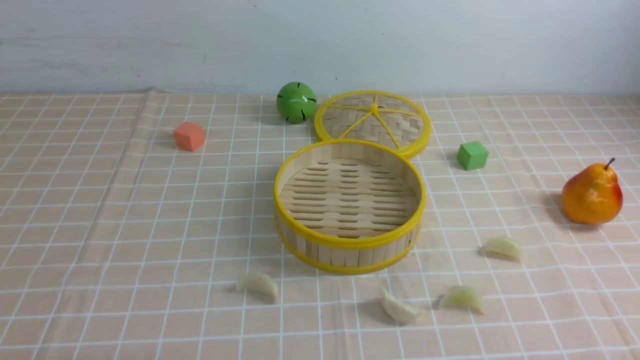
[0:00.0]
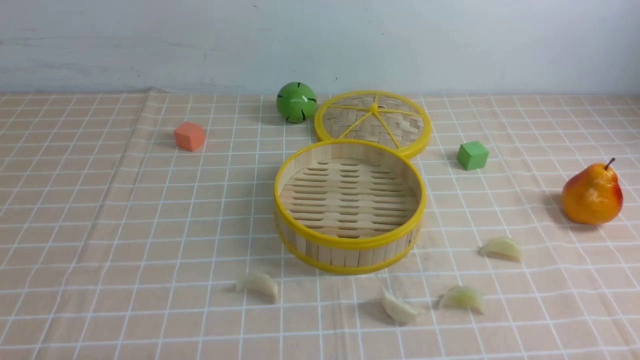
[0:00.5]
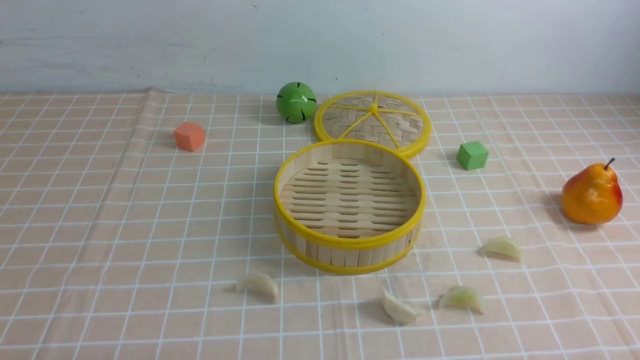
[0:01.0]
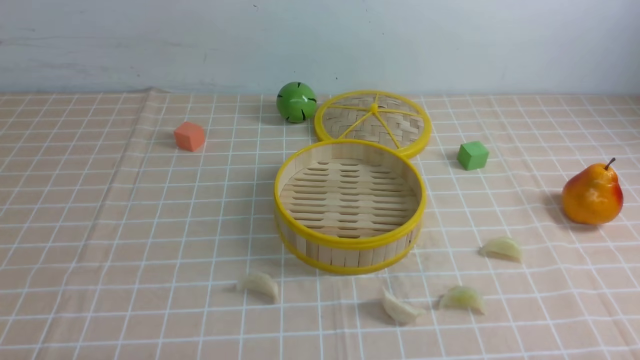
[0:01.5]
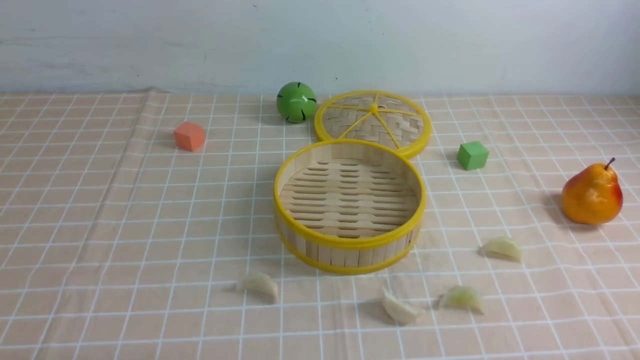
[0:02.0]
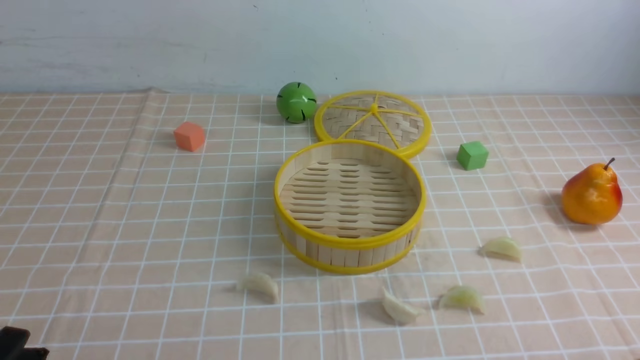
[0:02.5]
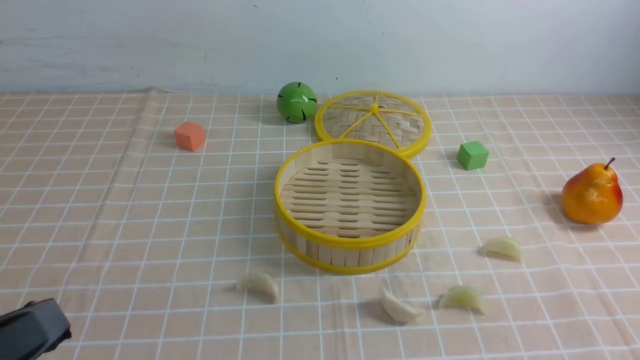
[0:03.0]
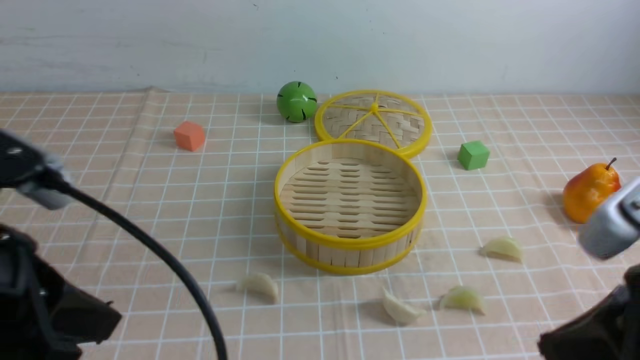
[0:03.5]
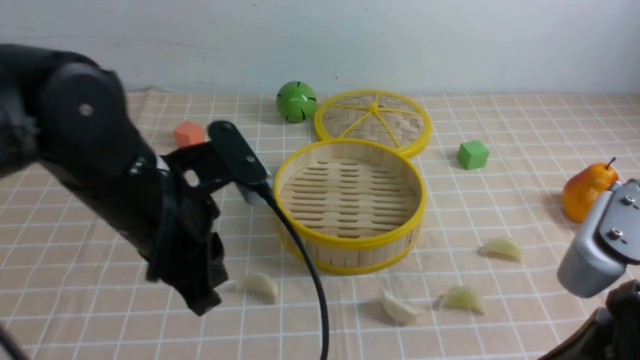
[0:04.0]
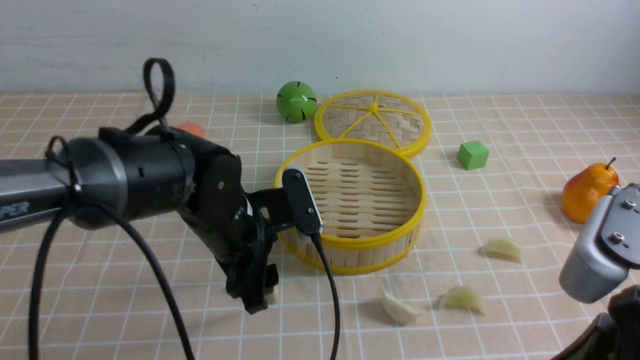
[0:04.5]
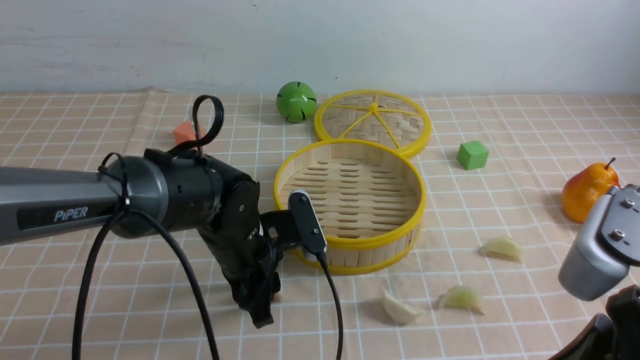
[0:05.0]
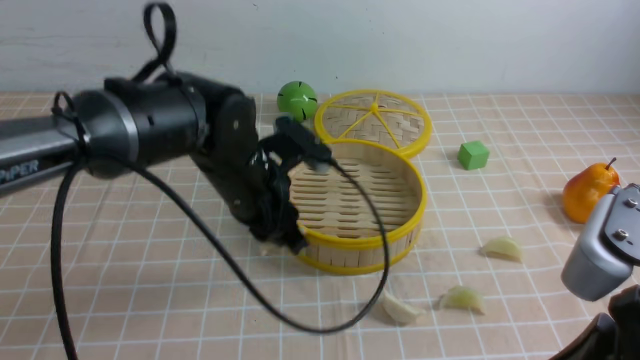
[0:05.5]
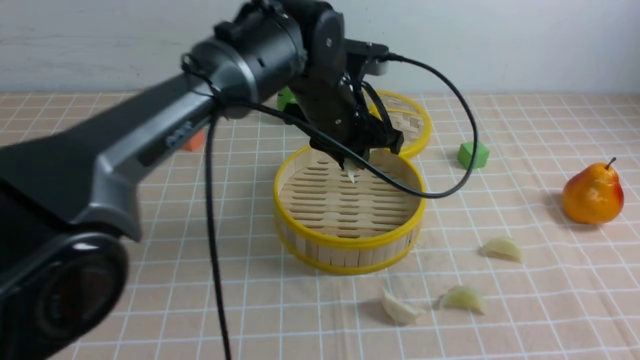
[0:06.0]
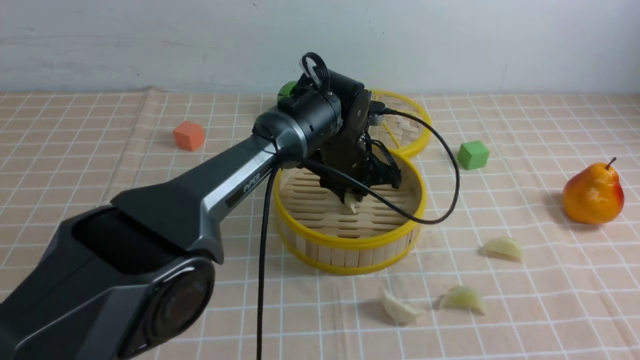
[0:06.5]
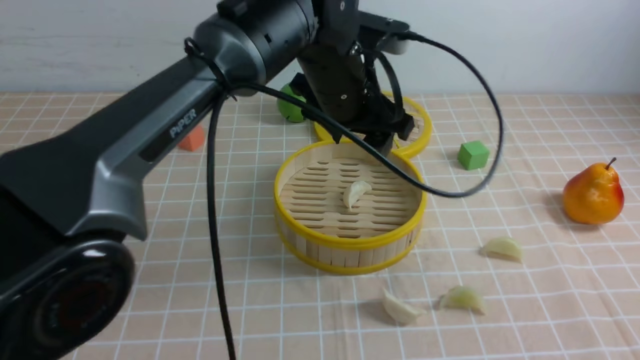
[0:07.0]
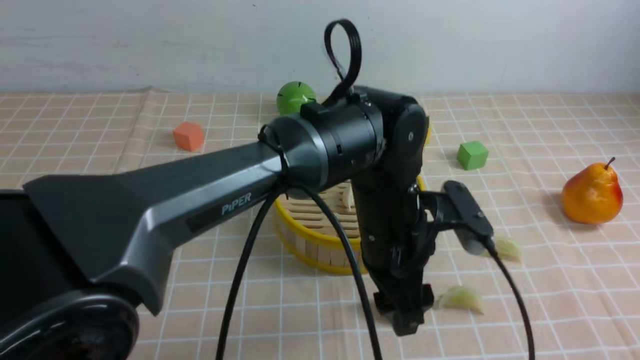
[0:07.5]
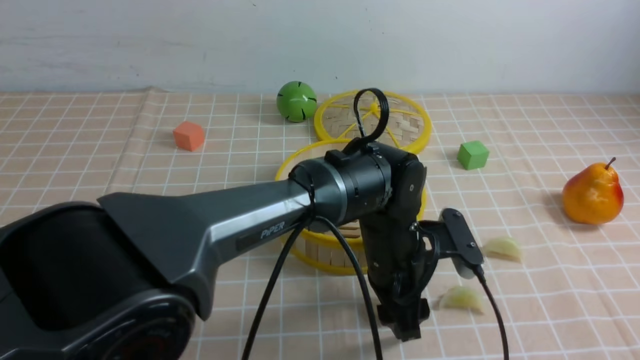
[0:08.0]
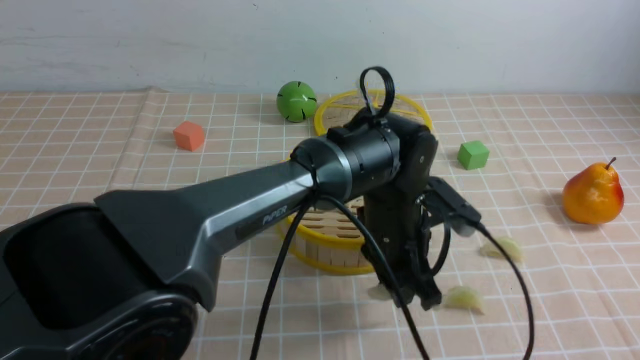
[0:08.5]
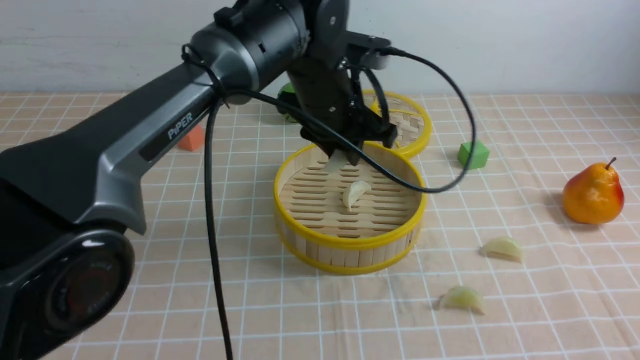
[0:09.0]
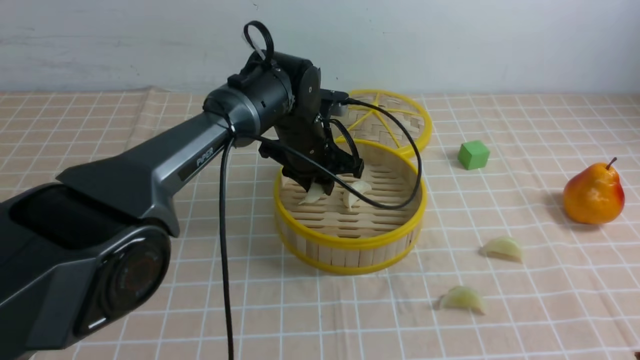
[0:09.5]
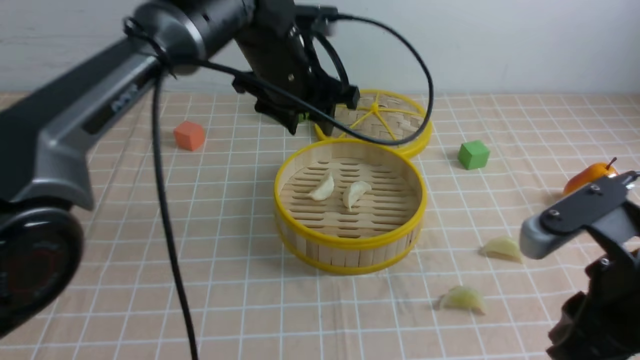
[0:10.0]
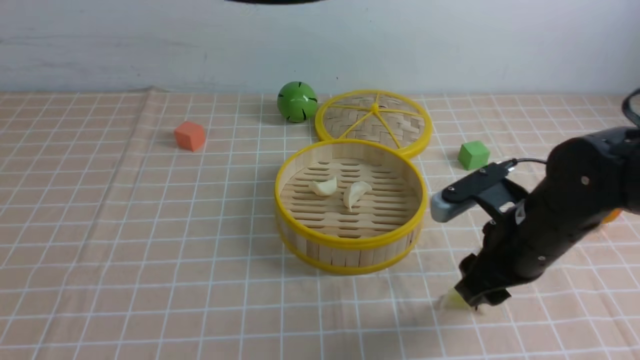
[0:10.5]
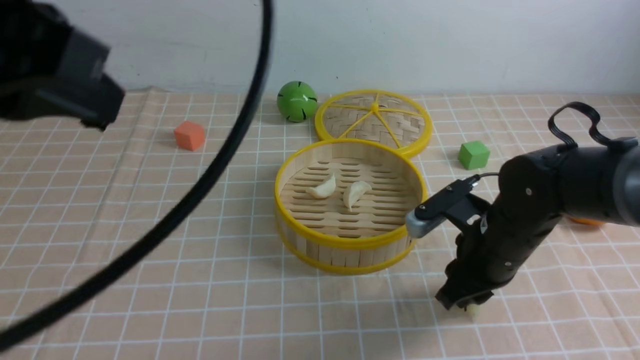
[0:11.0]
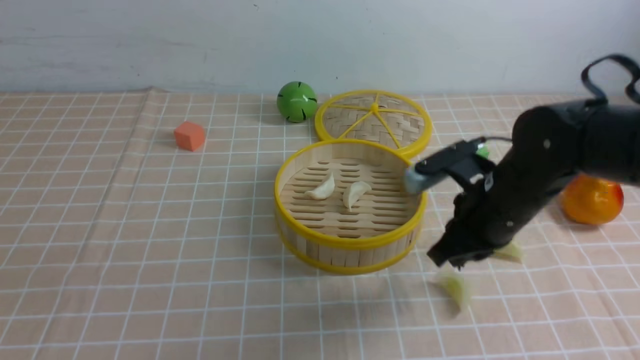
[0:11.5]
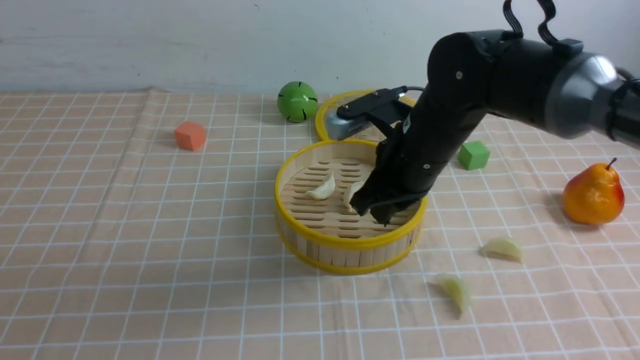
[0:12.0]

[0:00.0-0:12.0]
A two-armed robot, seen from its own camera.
Task of the whole recording: put the dumplings into the steamer on the table with the brown tablecloth.
Step, 0:00.0 to 0:05.0: use the left arm to grab a dumpling.
Step, 0:05.5 to 0:06.5: use the left arm to put the dumpling into the steamer.
Step, 0:07.0 to 0:08.0: use the left arm to grab a dumpling.
Step, 0:08.5 to 0:09.5: use the left arm to put the dumpling into the steamer.
0:02.0 to 0:04.0: The left gripper goes some 25 cm forward, upward and to the right; the right gripper shifts approximately 20 cm upward, to the left and forward, and closes up.
0:04.0 to 0:06.0: The left gripper is displaced forward and to the right by some 20 cm, and opens, then closes again.
0:06.0 to 0:08.0: The right gripper moves to the right and backward, approximately 10 cm; the left gripper heads downward, to the right and backward, covering some 15 cm, and opens up.
0:08.0 to 0:10.0: The right gripper goes roughly 15 cm forward, downward and to the left, while the left gripper is displaced upward, forward and to the left by roughly 20 cm.
0:10.0 to 0:12.0: The left gripper moves backward and to the left, some 40 cm, and closes up. Meanwhile the right gripper goes some 20 cm forward and to the left, and opens, then closes once more.

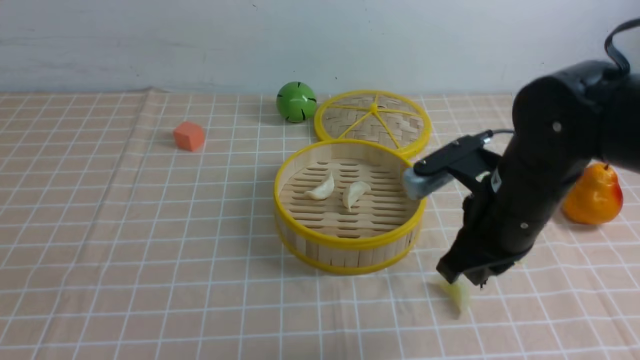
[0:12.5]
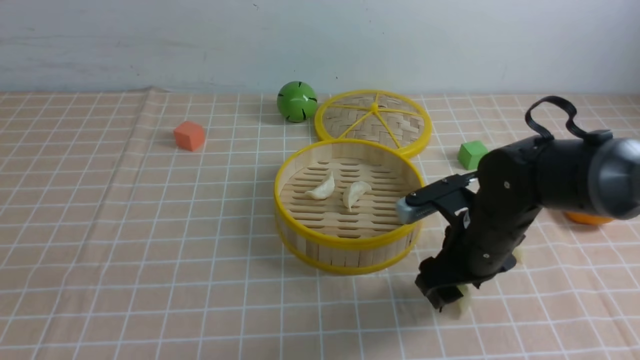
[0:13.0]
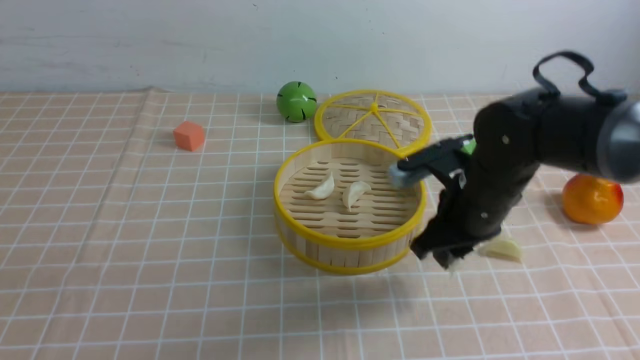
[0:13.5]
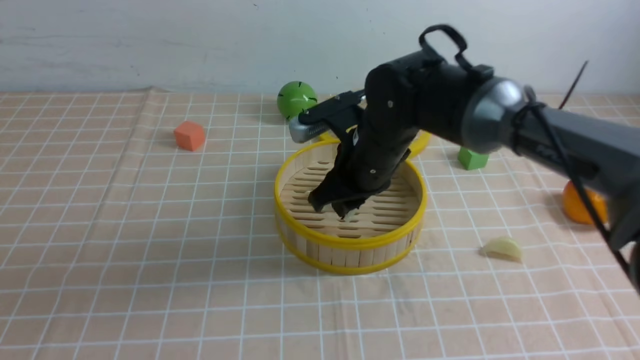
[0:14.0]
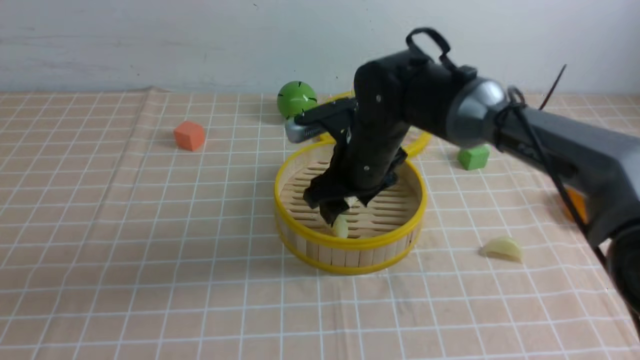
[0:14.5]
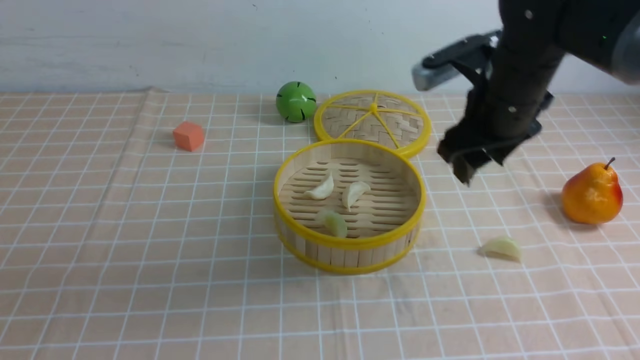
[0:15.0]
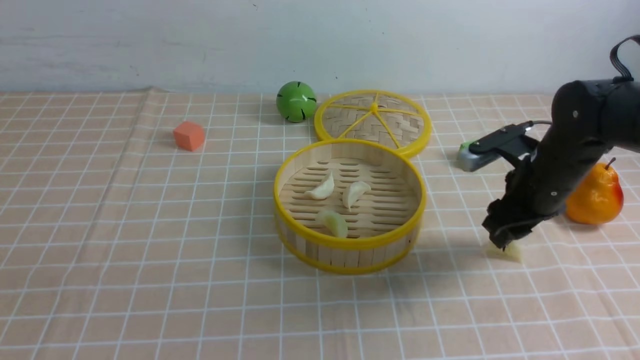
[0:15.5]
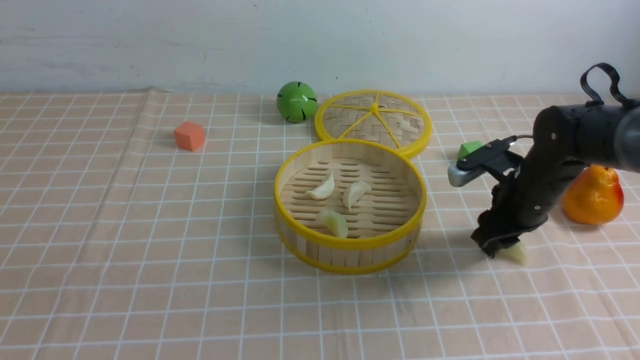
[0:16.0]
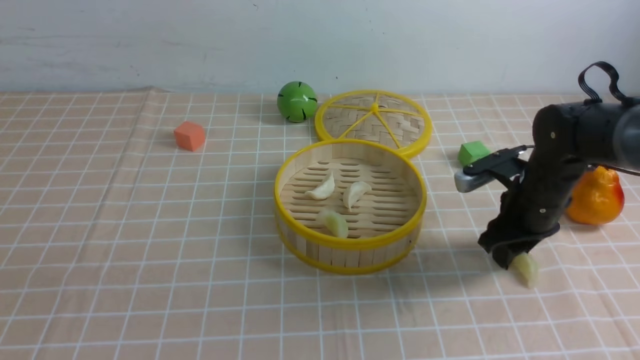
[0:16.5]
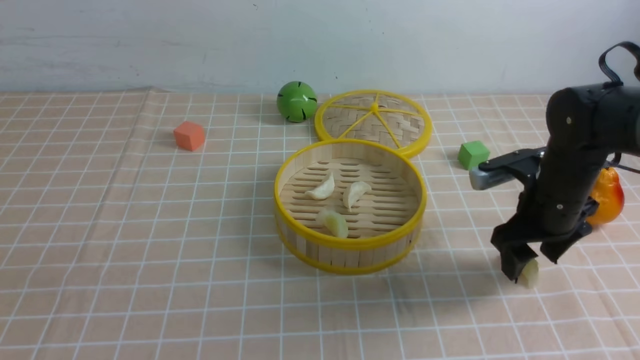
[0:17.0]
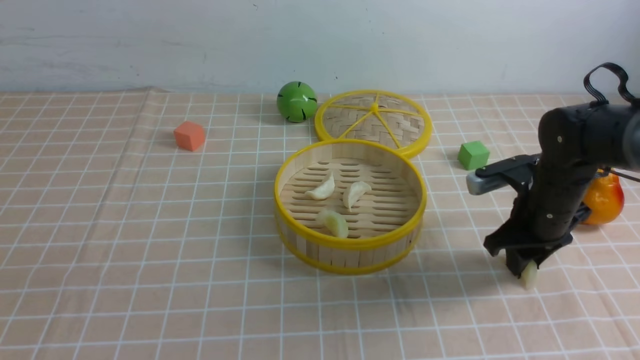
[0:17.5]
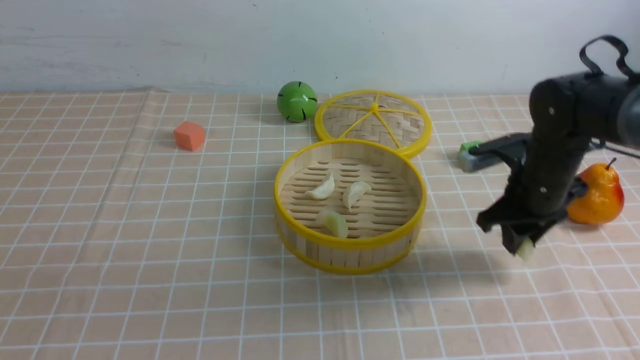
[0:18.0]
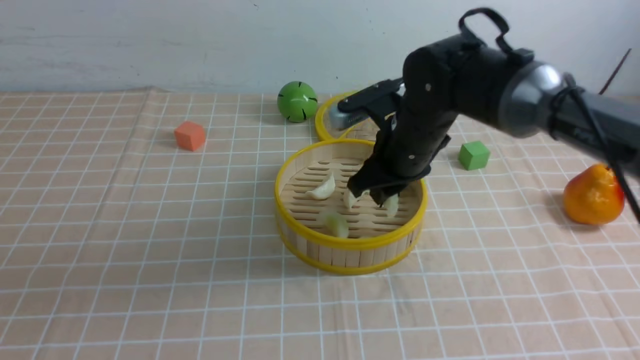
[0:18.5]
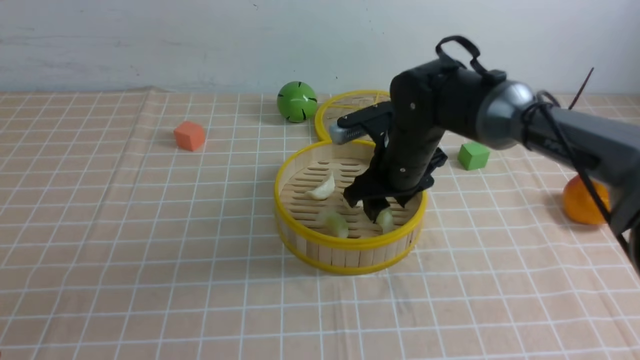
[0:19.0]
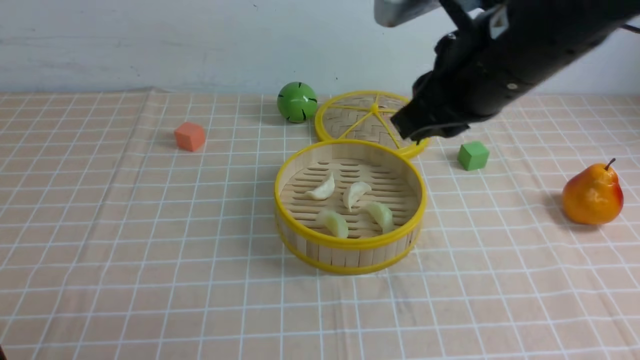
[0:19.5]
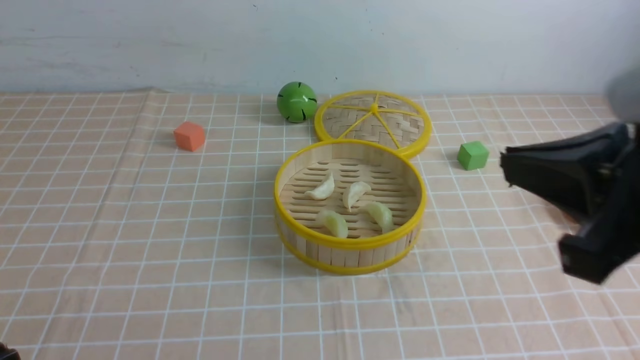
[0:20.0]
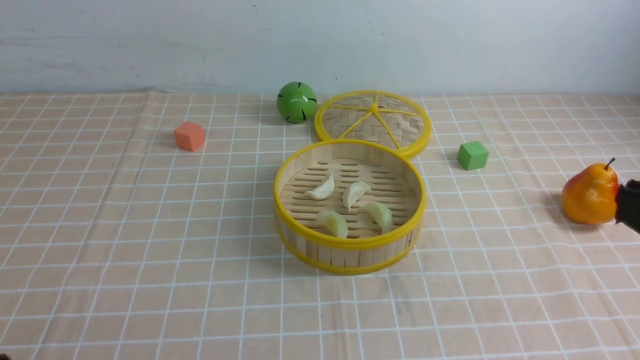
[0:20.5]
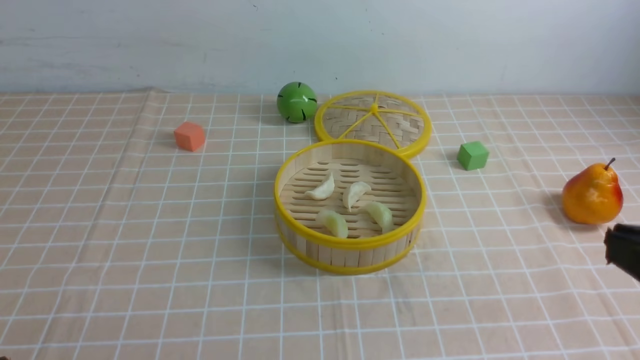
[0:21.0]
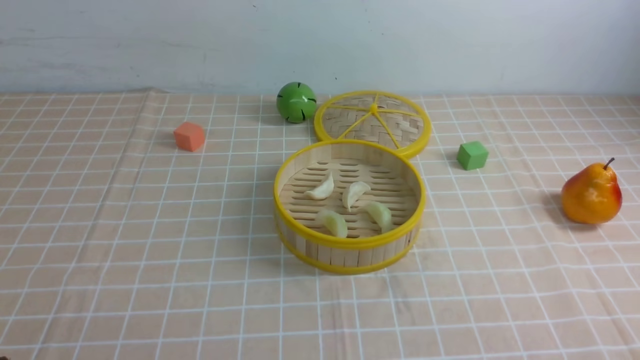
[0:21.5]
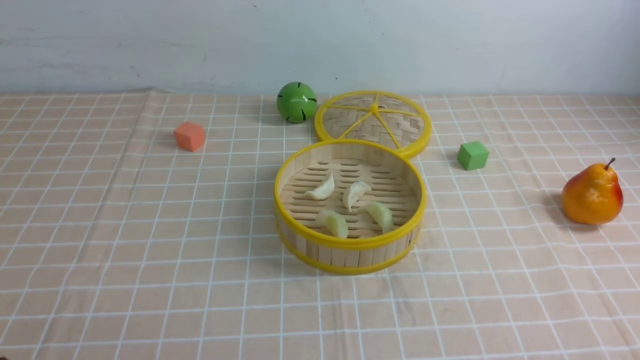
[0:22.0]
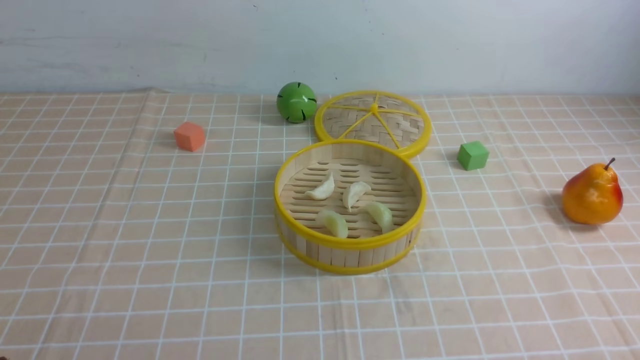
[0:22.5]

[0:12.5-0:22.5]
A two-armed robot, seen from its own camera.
Task of the whole recording: put the dumplings into the steamer on the table with the brown tablecloth.
Step, 0:13.5 to 0:14.5: use the right arm to put the dumpling into the steamer.
Step, 0:15.0 to 0:17.5: use the right arm to grab a dumpling.
Step, 0:18.0 to 0:19.0: use the right arm to put the dumpling into the steamer.
0:12.5 to 0:14.5: The right gripper travels to the left and forward by roughly 15 cm, and opens its fingers.
0:14.5 to 0:16.5: The right gripper heads to the right, covering approximately 20 cm.
0:16.5 to 0:18.5: The right gripper moves to the left and upward, approximately 15 cm, and opens and closes again.
0:18.5 to 0:20.5: The right gripper travels backward by roughly 30 cm, and closes its fingers; the left gripper is displaced downward by some 15 cm.
